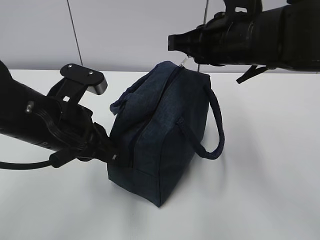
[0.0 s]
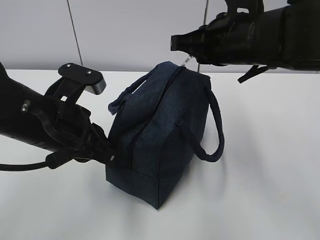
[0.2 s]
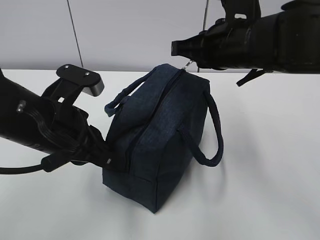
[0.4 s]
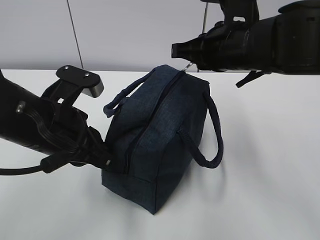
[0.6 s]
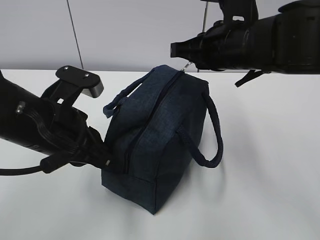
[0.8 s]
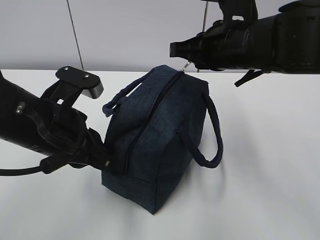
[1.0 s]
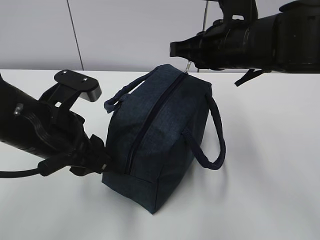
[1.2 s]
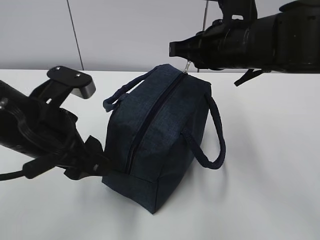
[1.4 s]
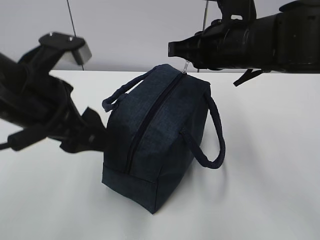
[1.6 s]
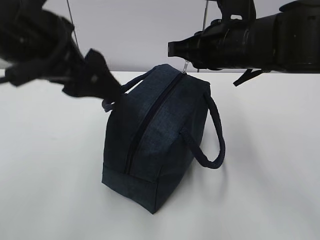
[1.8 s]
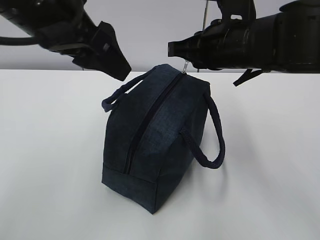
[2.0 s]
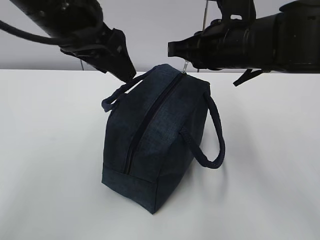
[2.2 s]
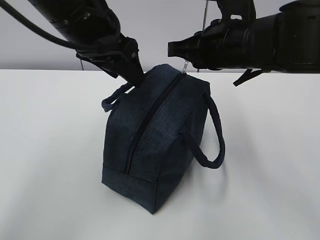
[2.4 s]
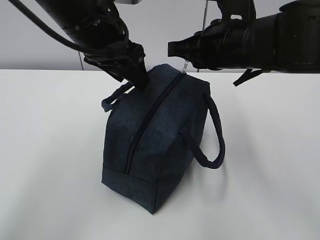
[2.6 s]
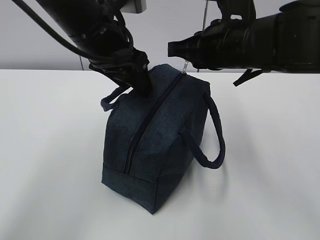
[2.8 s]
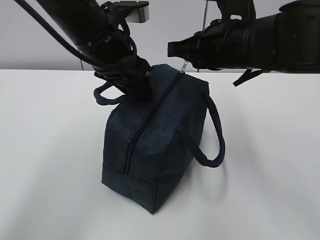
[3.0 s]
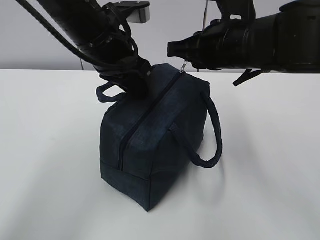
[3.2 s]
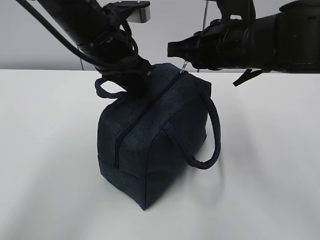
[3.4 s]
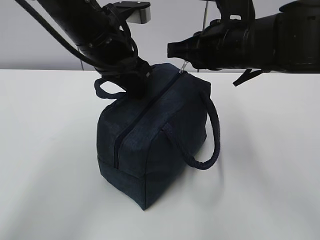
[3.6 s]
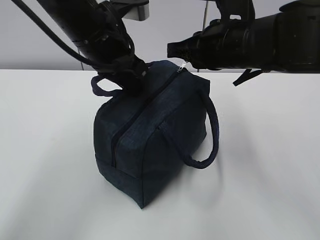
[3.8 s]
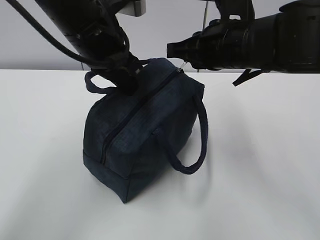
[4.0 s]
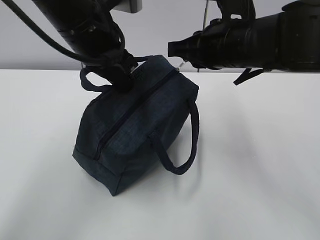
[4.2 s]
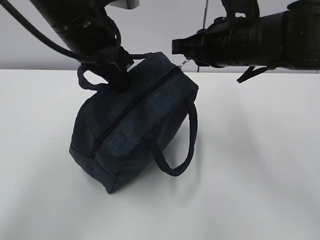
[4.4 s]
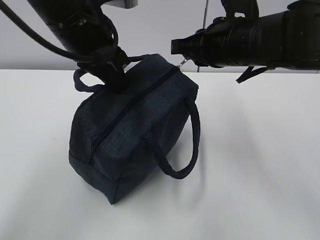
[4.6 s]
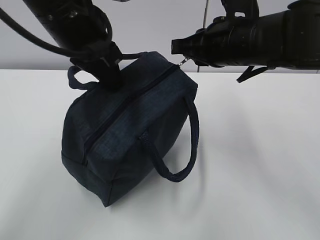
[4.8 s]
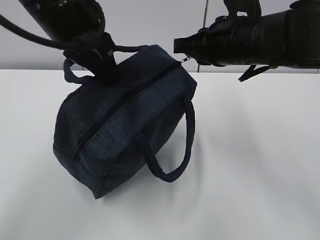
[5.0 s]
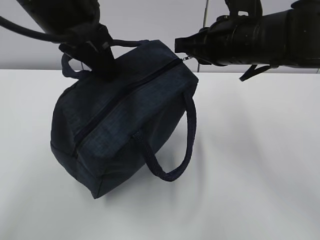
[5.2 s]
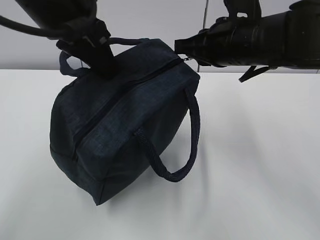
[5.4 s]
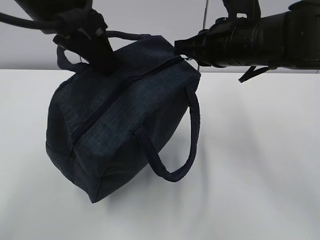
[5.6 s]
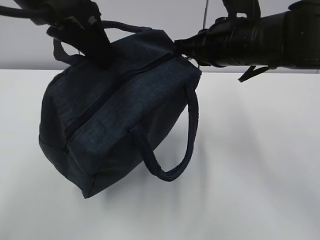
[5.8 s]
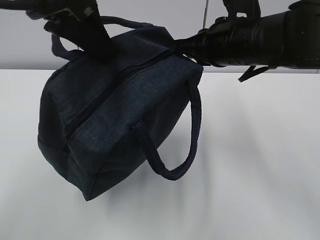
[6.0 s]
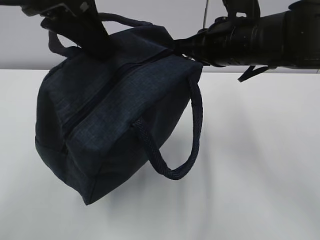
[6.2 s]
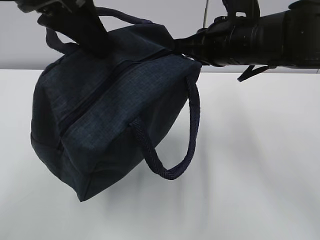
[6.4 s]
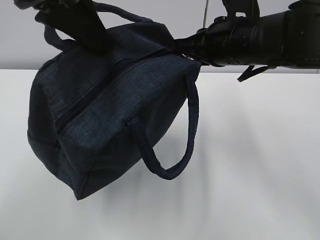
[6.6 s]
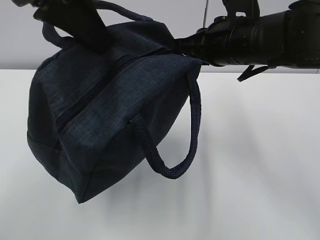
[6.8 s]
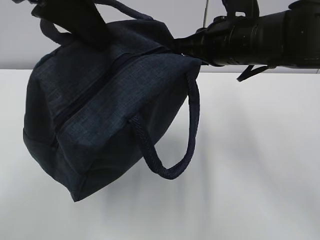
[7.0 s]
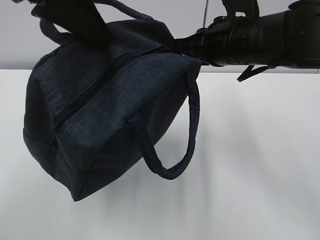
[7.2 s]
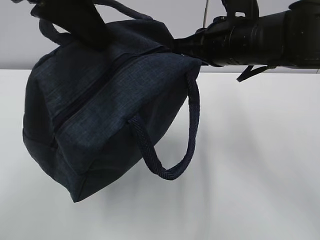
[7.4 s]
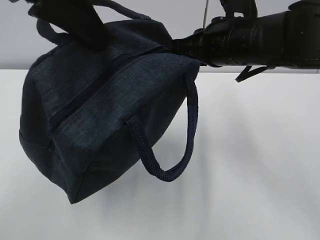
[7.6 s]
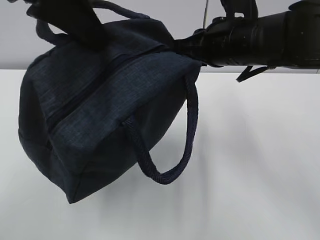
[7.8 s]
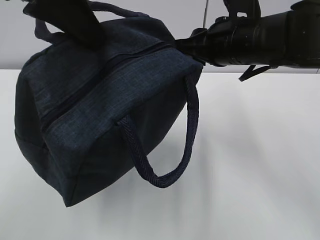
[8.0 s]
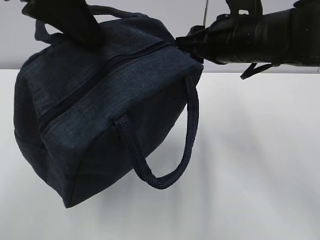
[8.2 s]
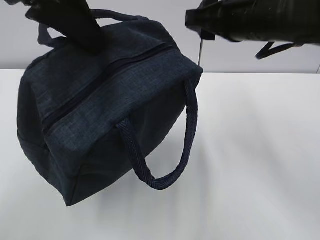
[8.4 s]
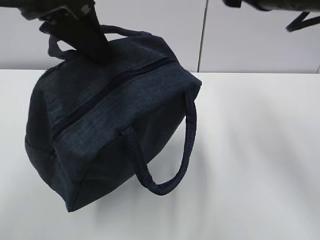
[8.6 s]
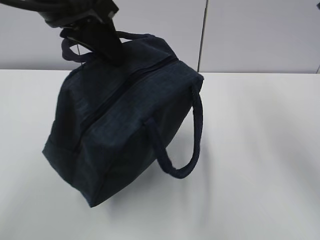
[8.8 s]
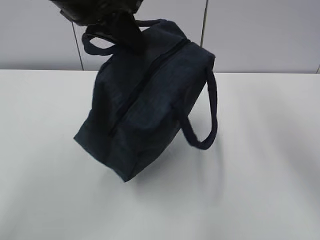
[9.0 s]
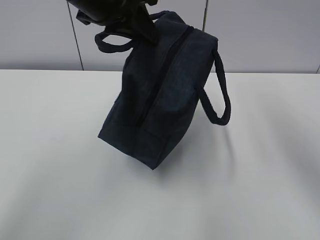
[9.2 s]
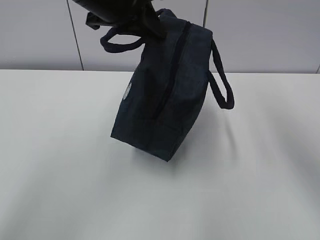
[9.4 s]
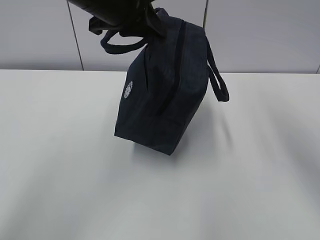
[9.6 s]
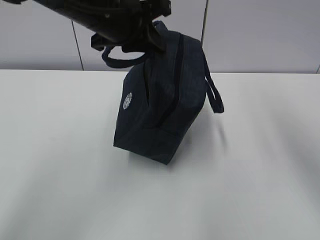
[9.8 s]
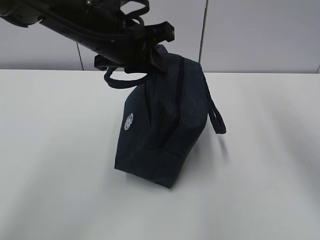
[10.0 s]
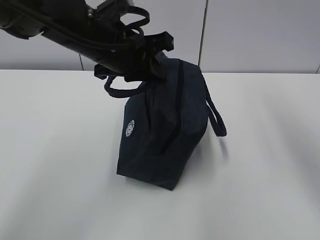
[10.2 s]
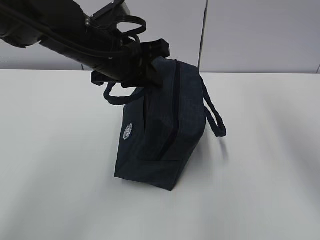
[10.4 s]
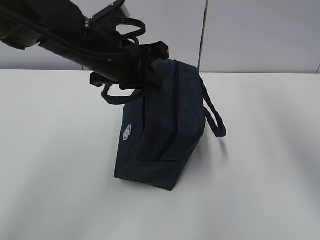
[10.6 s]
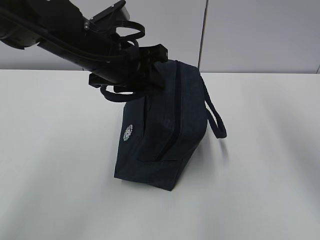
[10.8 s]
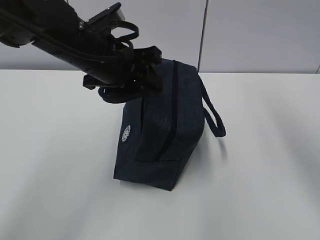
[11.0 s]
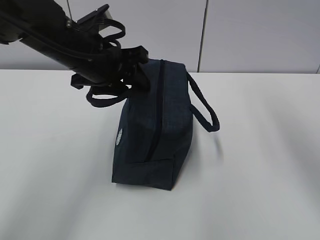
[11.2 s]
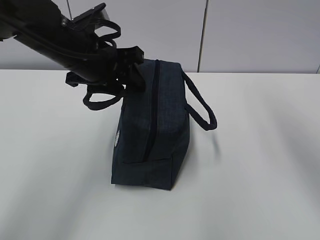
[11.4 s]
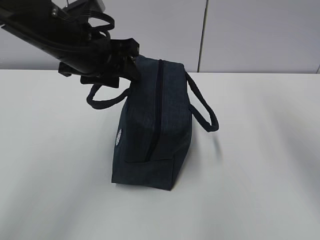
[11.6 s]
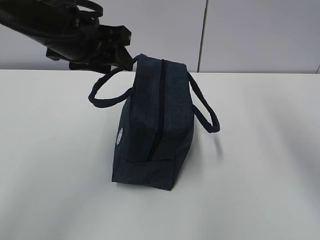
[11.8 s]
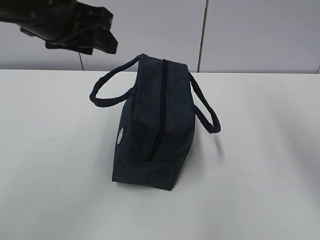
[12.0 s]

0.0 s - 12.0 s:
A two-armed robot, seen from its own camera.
0.0 s - 1.6 s: The left gripper heads upward, covering some 5 cm, and opens.
1.6 s - 3.0 s: The left gripper goes some 15 cm forward and to the right.
3.0 s - 4.4 s: The left gripper closes up.
4.4 s - 6.0 s: The left gripper heads upward and backward, covering approximately 10 cm.
6.0 s - 7.6 s: The grippers stay close to where they were, moving slightly.
7.6 s - 9.0 s: The left gripper heads forward, covering about 5 cm; the right gripper goes about 15 cm upward, backward and to the right, and opens up.
9.0 s - 10.4 s: The left gripper shifts some 10 cm downward.
10.4 s - 12.0 s: The left gripper heads upward and to the left, covering some 10 cm, and opens.

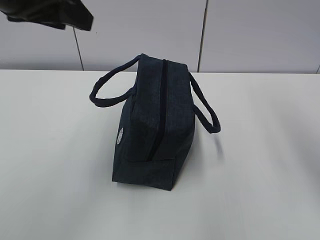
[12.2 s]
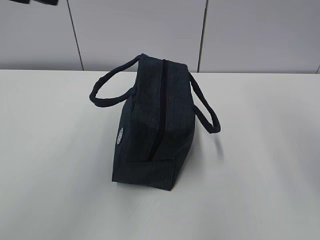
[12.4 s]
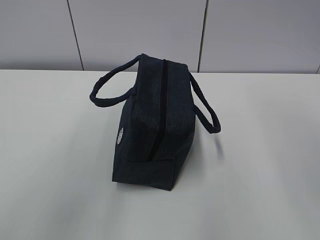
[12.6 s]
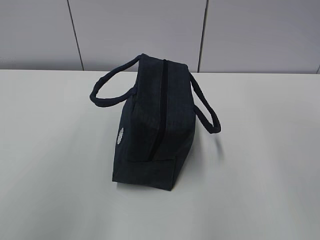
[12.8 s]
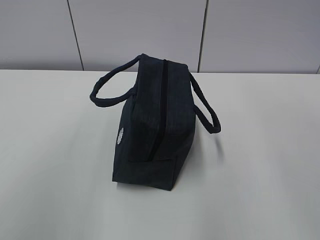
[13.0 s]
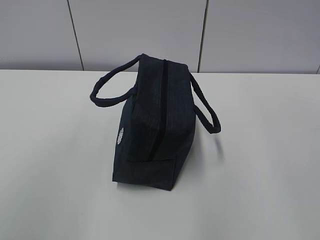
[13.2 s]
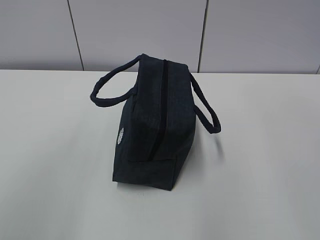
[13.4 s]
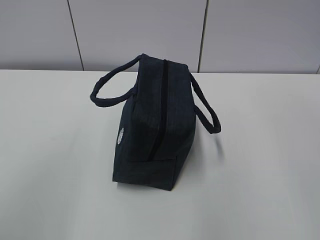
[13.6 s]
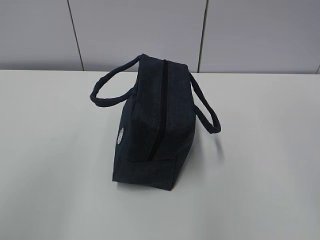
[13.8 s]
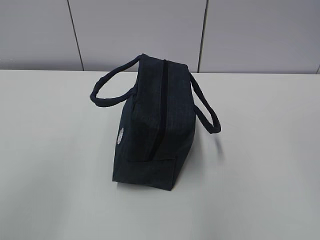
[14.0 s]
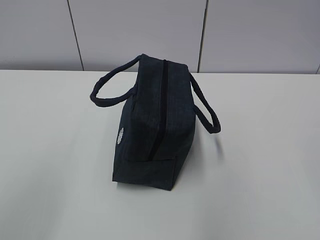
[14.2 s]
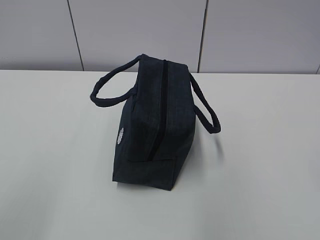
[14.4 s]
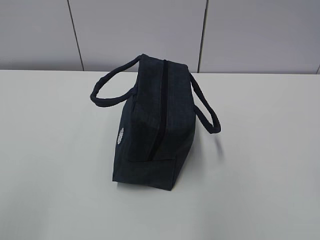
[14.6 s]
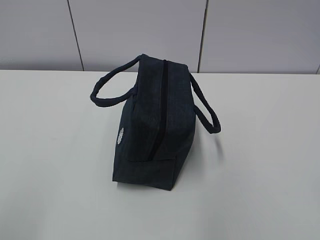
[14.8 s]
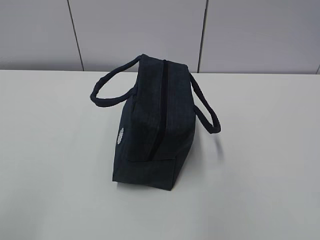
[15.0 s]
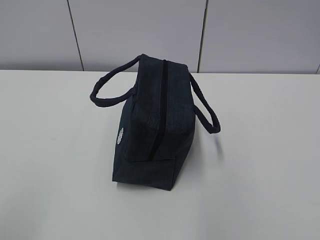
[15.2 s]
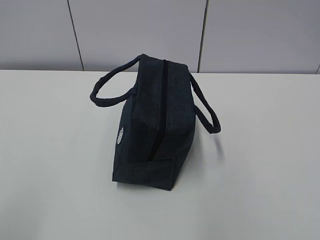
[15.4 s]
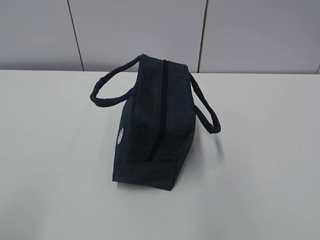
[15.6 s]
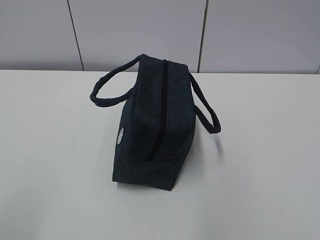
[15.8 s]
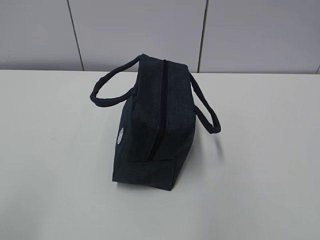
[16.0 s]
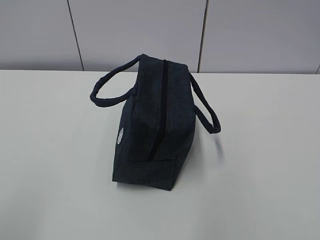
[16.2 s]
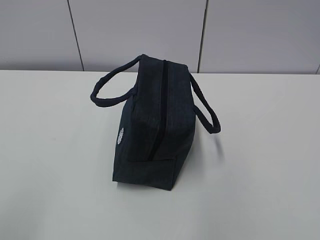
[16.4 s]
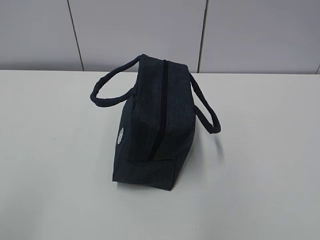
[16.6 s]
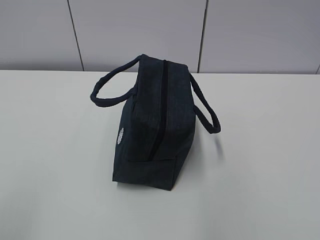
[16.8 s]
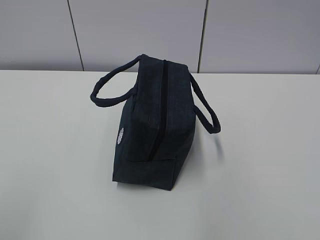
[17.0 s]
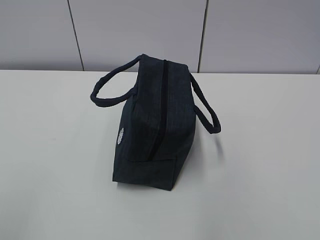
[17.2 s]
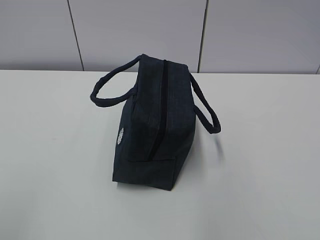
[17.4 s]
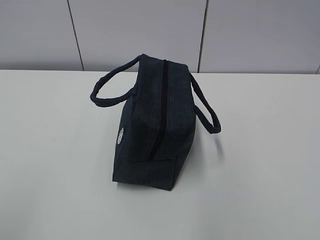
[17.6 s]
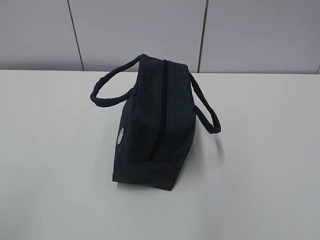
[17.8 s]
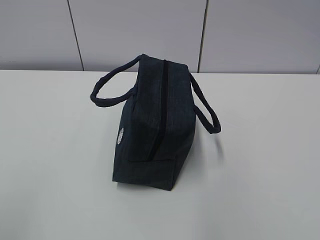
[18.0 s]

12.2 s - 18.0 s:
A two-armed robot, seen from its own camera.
12.2 s - 13.6 s: The right gripper heads backward and upward, covering approximately 15 cm. Meanwhile the left gripper travels backward and to the left by approximately 25 cm.

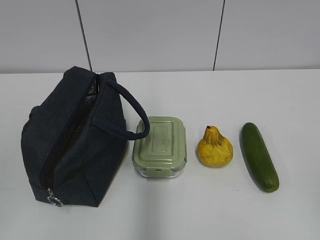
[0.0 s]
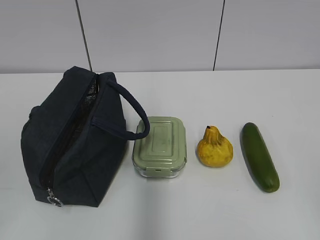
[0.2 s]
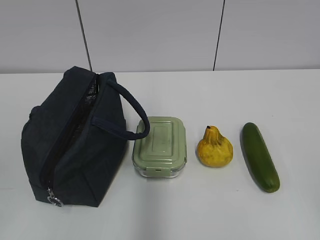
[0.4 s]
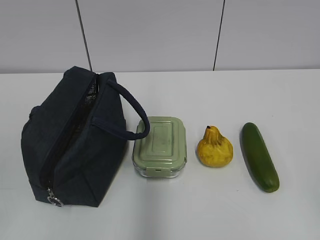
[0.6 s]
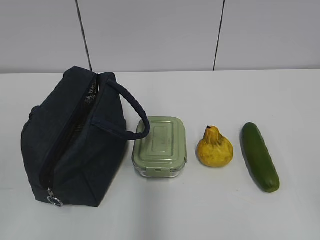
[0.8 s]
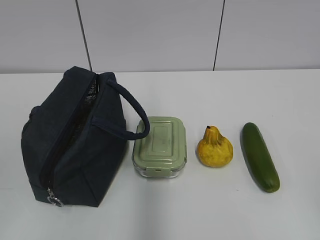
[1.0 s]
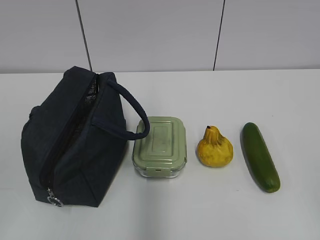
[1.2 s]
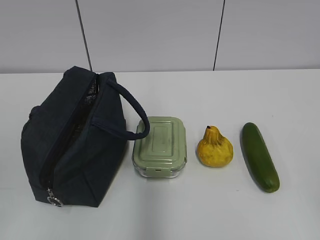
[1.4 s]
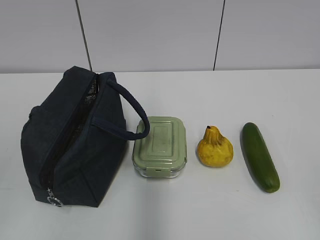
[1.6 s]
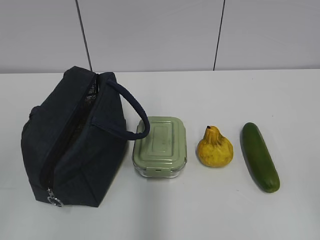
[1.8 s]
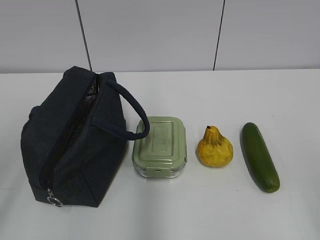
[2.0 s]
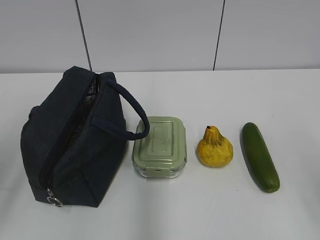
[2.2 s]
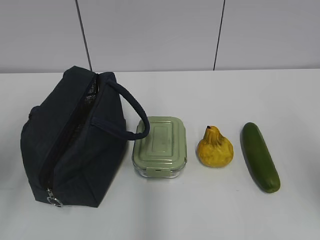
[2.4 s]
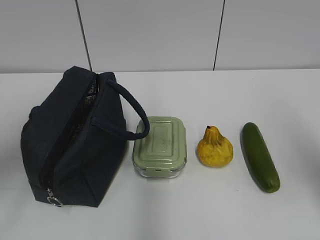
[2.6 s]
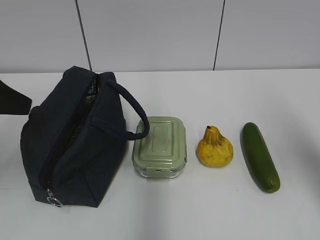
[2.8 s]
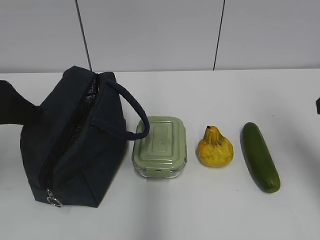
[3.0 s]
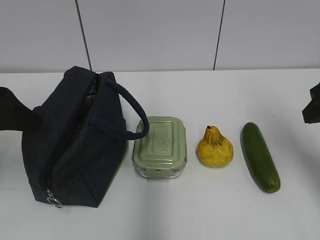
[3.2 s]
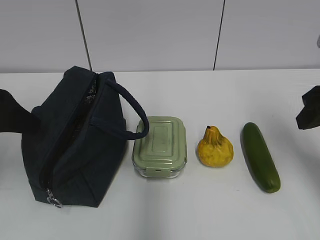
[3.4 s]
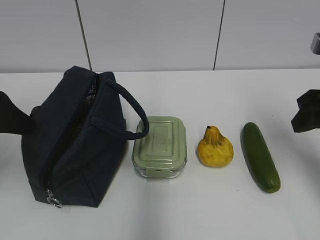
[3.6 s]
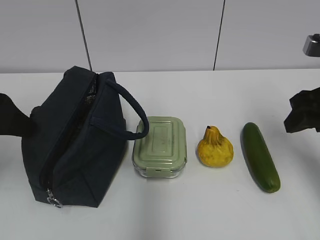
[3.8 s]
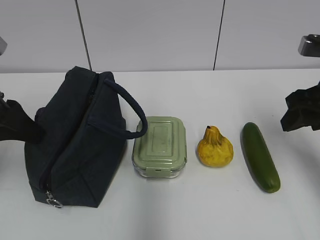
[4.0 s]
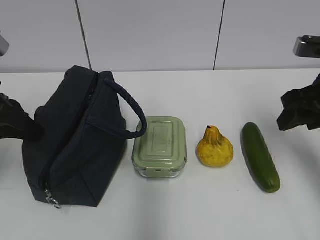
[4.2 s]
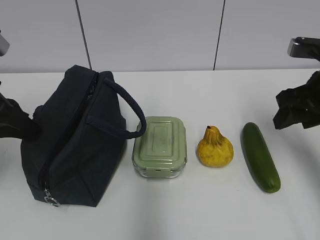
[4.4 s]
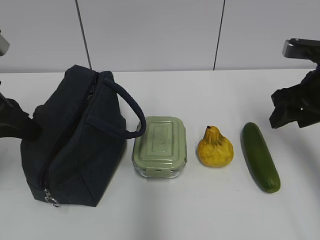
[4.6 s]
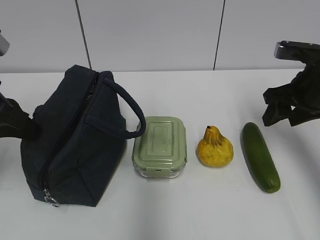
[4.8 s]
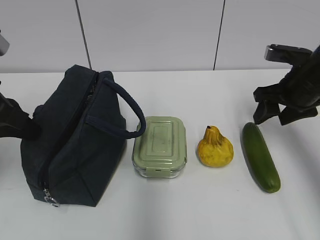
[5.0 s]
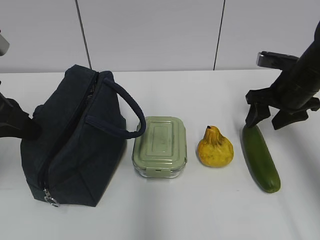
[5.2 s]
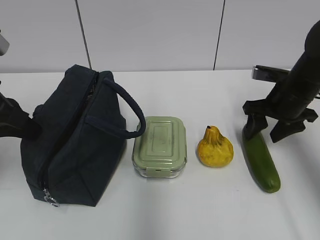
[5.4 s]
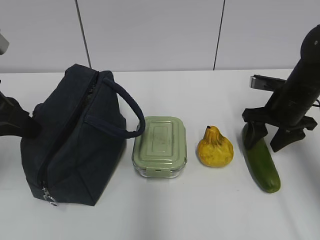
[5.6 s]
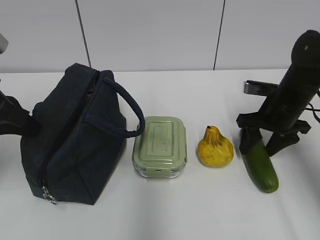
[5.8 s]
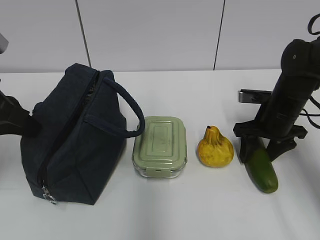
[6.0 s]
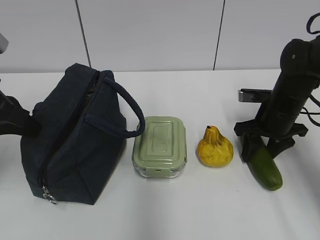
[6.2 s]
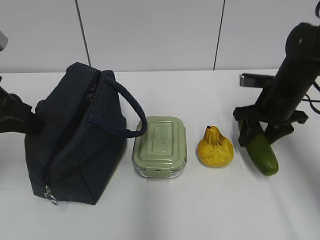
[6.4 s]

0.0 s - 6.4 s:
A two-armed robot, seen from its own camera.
Step, 0.0 s - 6.0 s: Grab the cucumber with your right hand.
1.6 s - 3.2 s: Both grippers move forward, approximately 25 cm.
3.2 s - 4.8 s: The left gripper closes its fingers; the right gripper shifts about 10 cm forward and downward.
4.8 s - 6.4 s: The right gripper moves downward, approximately 5 cm.
